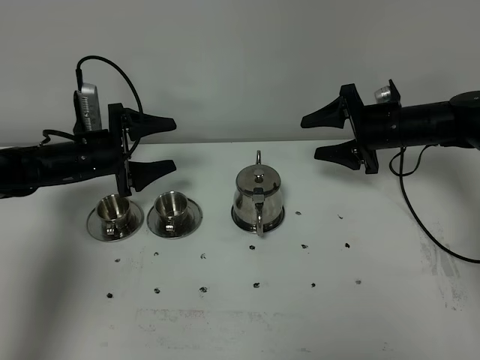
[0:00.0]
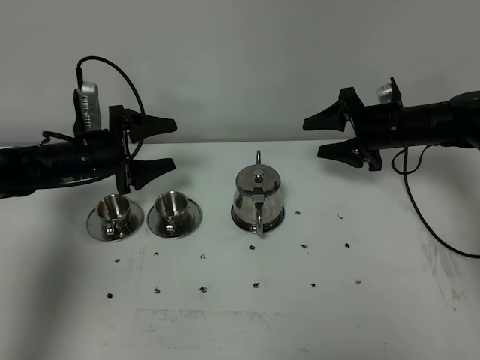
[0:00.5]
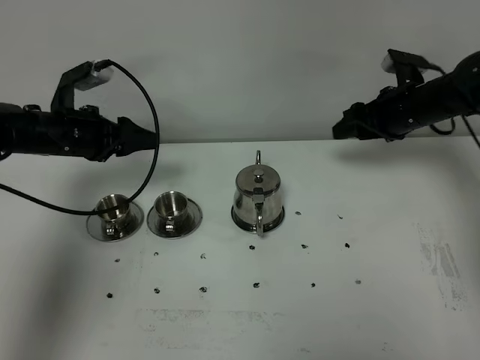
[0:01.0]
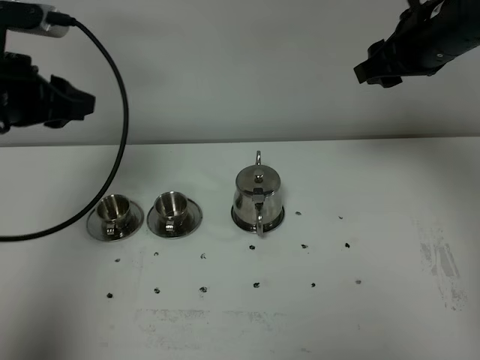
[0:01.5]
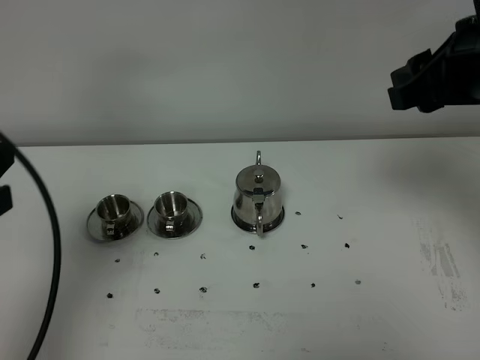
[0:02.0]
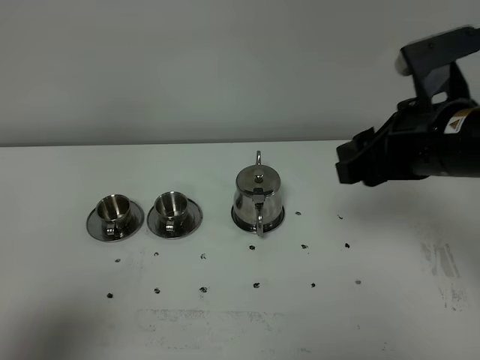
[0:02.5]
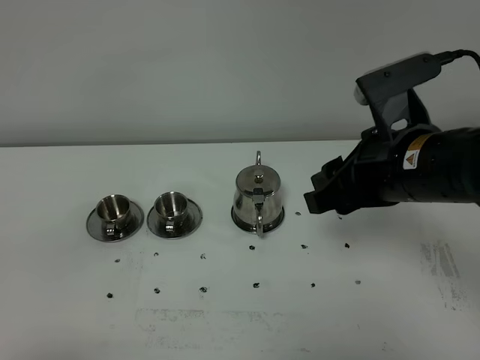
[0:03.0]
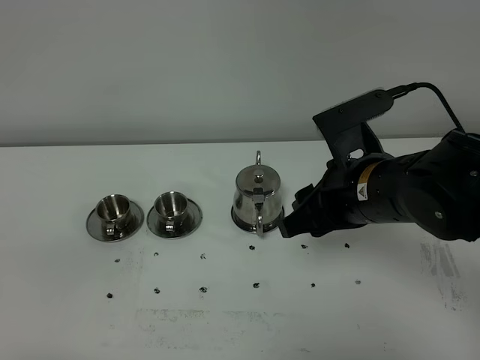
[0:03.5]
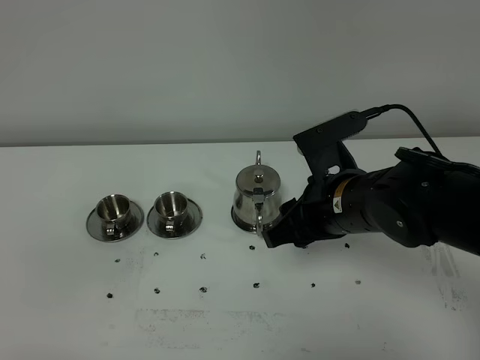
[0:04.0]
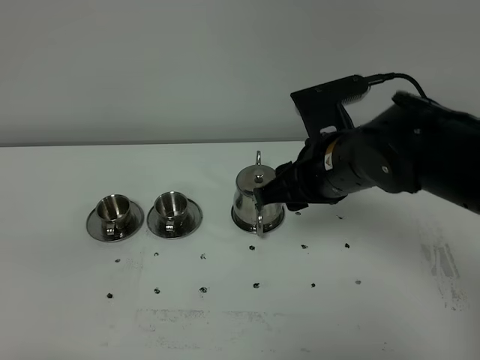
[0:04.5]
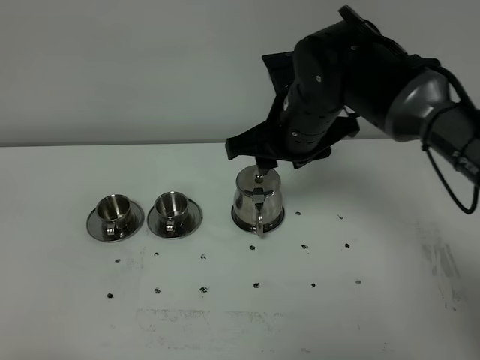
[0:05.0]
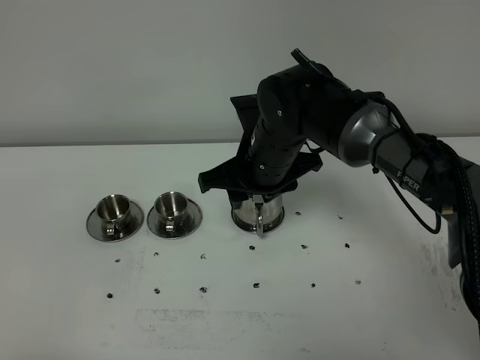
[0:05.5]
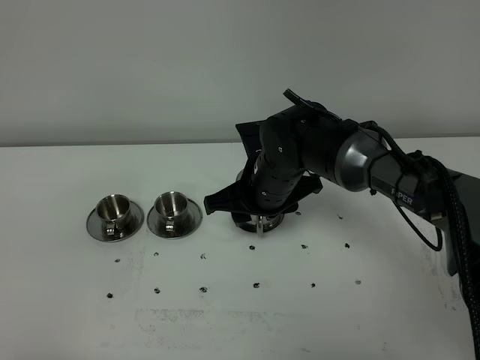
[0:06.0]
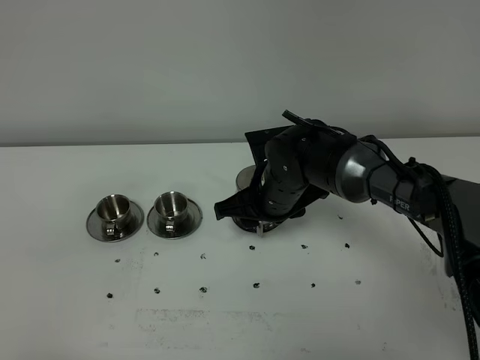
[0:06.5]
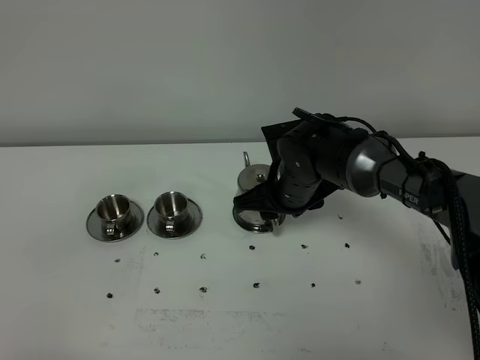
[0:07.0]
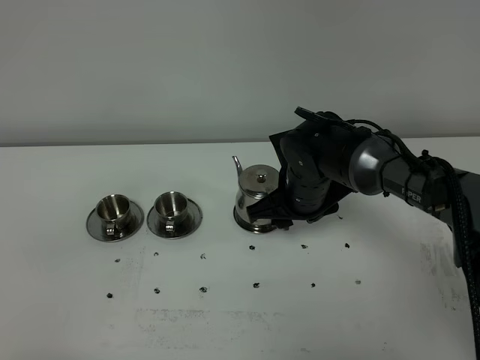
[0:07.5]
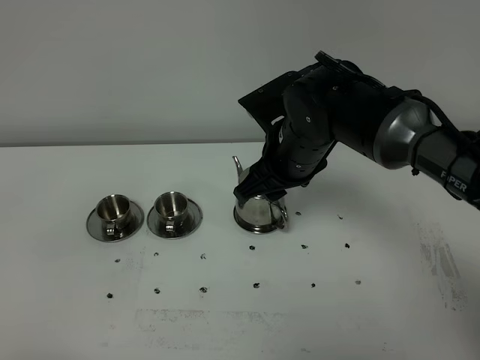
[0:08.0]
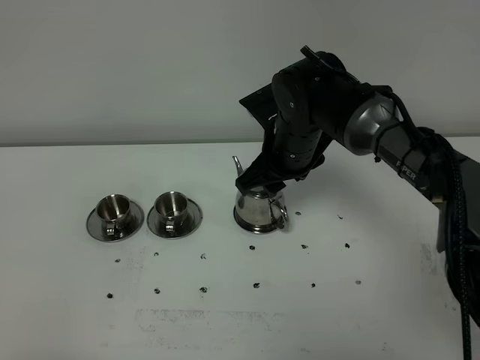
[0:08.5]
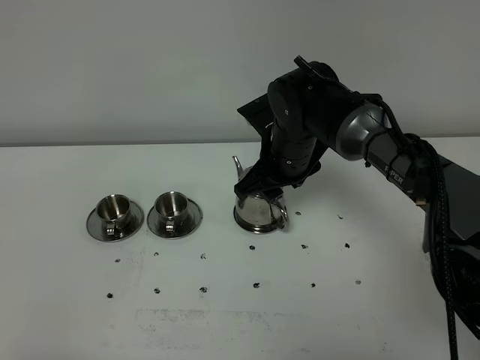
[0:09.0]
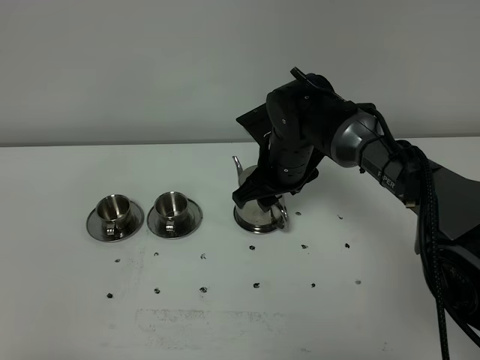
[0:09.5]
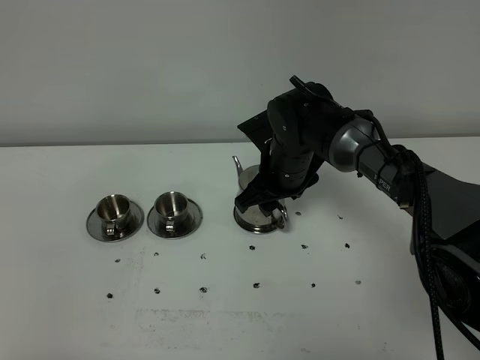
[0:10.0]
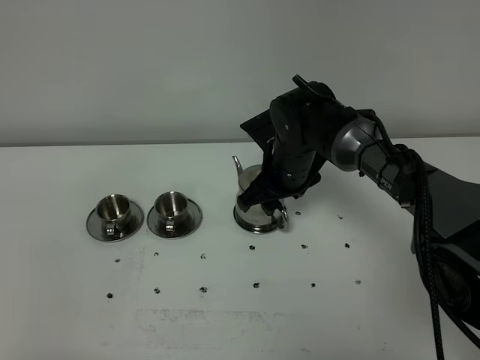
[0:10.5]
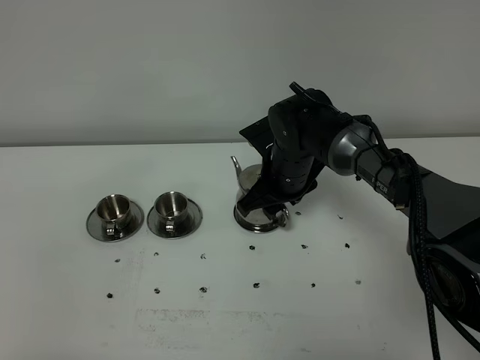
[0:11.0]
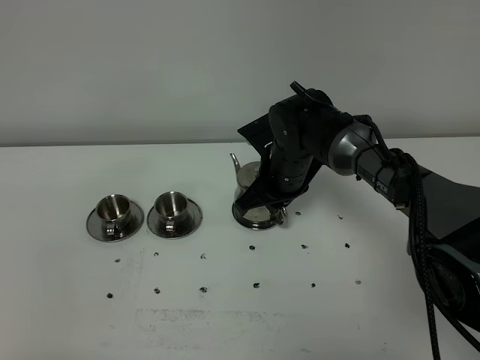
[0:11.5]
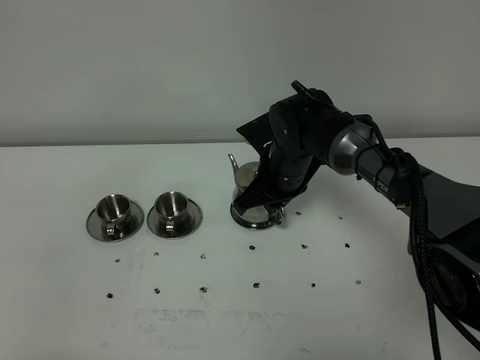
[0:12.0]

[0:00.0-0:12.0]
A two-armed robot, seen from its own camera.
Task of the whole recording: grasp the stainless steel teapot and pour the tea into the two stainless steel teacups one by one, put the stainless steel teapot back in its original place.
0:00.0 to 0:02.0: The left gripper moves backward and upward, about 35 cm, and closes up. Meanwhile the right gripper goes some 30 cm upward and backward.
0:02.0 to 0:04.0: The right gripper heads downward and to the left, covering approximately 20 cm. Meanwhile the left gripper travels backward and downward by some 20 cm, and closes its fingers.
0:04.0 to 0:06.0: The right gripper moves forward and to the left, roughly 10 cm.
0:06.0 to 0:08.0: The right gripper goes approximately 5 cm upward.
0:08.0 to 0:10.0: The right gripper goes some 10 cm downward and forward.
0:10.0 to 0:12.0: The right gripper closes.

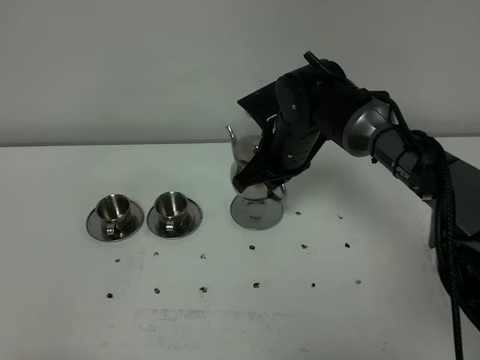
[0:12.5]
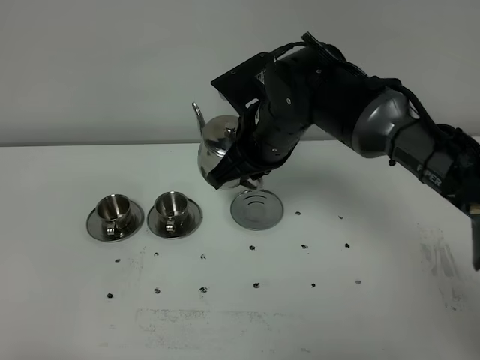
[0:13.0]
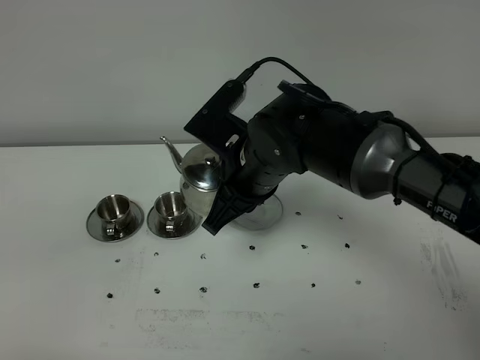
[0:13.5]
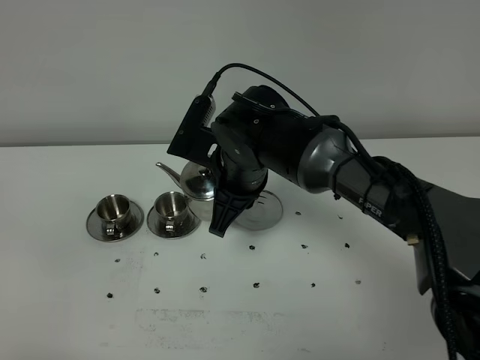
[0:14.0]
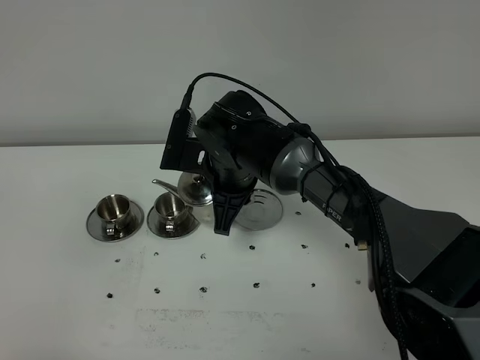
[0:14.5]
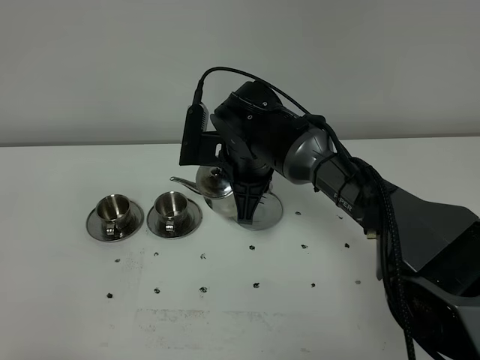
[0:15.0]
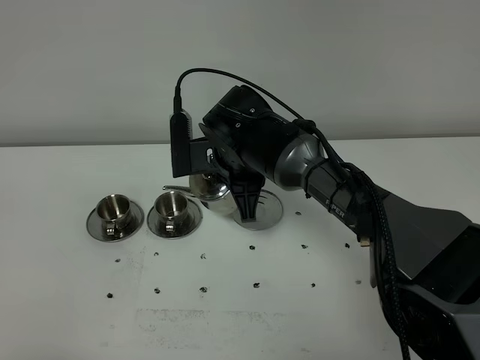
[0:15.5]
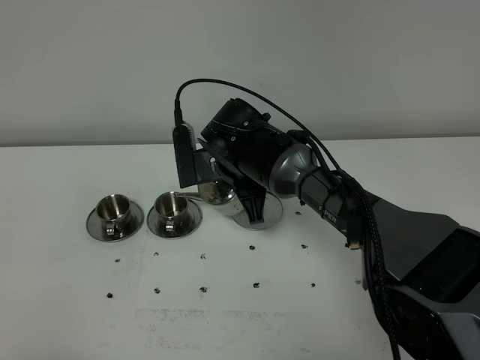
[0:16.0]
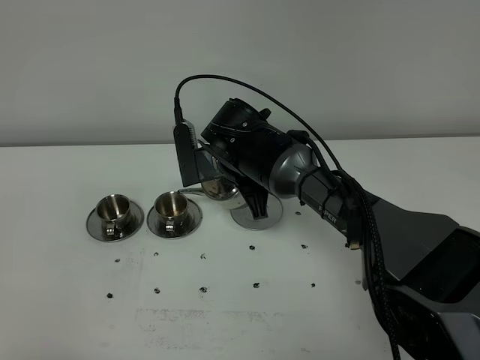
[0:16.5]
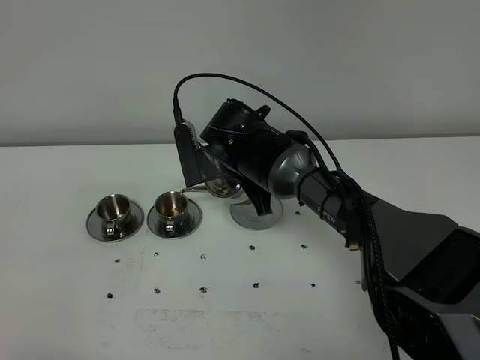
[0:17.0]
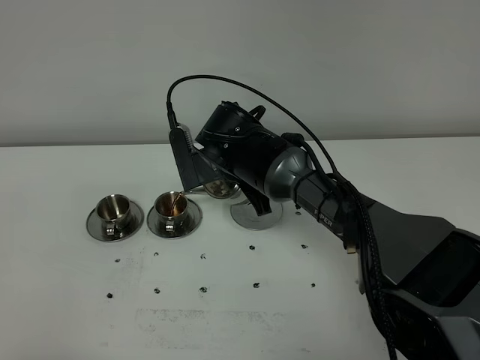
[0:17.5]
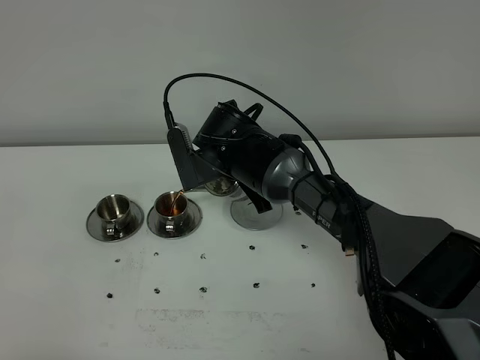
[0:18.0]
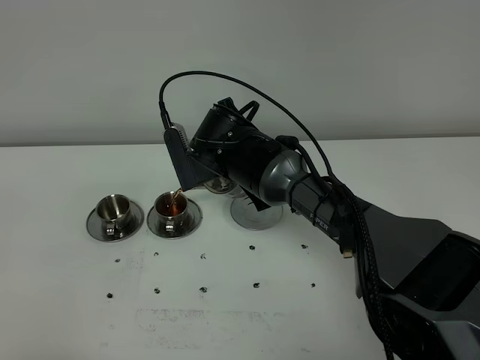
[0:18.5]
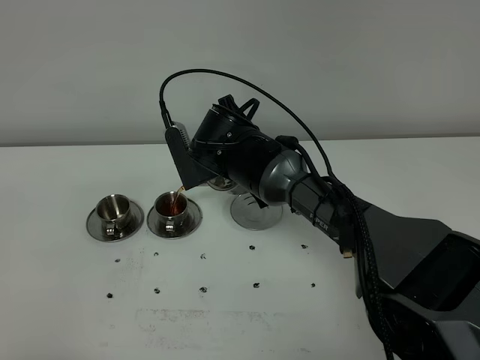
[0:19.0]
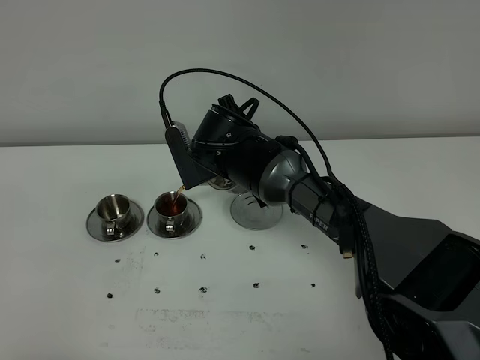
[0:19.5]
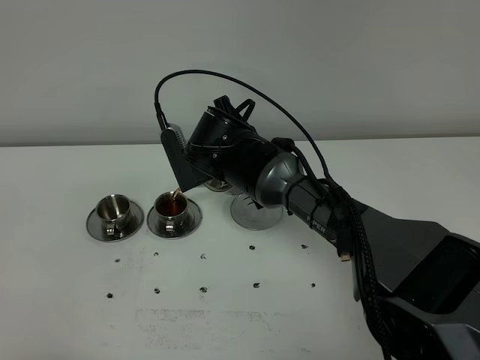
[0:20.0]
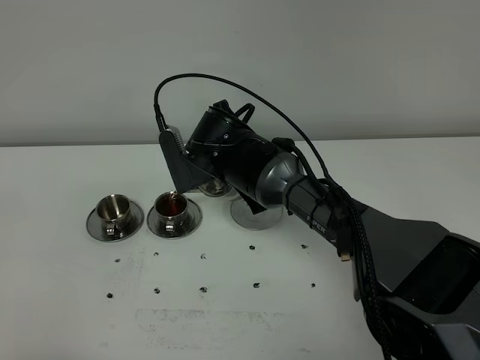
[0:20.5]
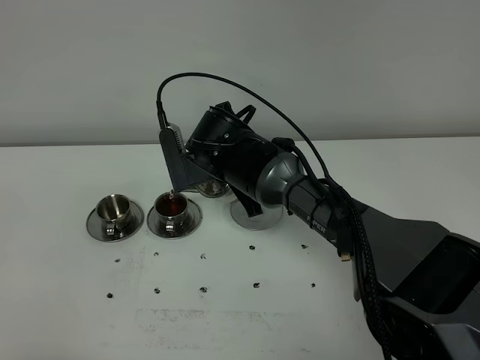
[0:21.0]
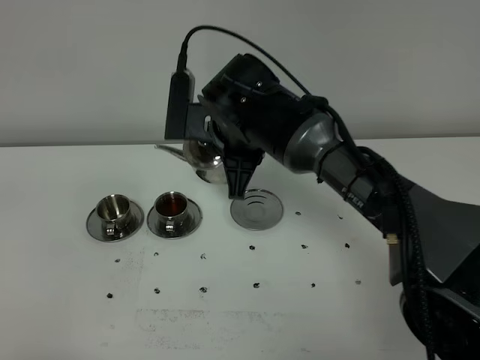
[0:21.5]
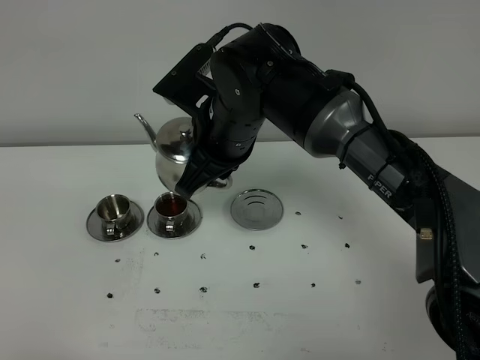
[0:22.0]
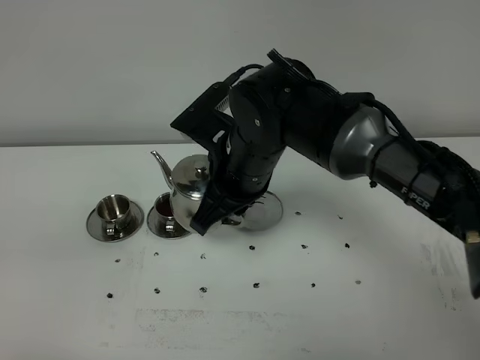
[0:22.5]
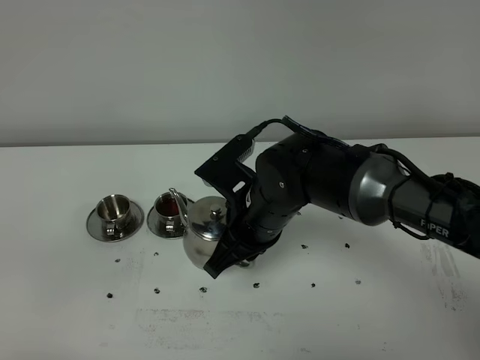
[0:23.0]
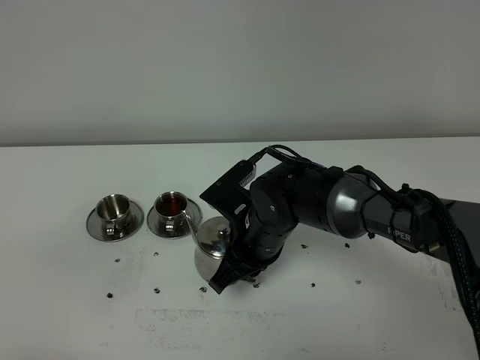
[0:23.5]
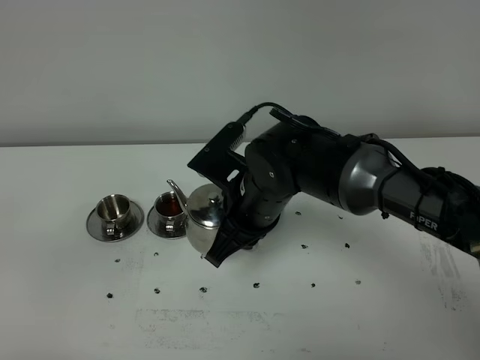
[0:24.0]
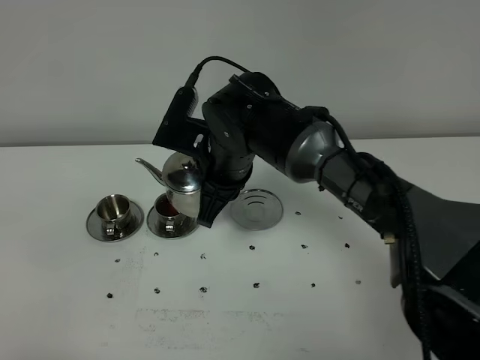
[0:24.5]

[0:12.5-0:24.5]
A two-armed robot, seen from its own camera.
Task of the whole recording: grasp the stainless steel teapot and pour the tea into the two stainless steel teacups one by one, put the stainless steel teapot back in its original place.
Step, 0:12.5 to 0:21.0: Pour tea into the teacup with the right gripper.
0:12.5 to 0:14.5: The right gripper is displaced to the left by roughly 5 cm.
0:16.5 to 0:18.5: The grippers stay close to where they were, moving slightly.
0:18.5 to 0:20.5: The two grippers keep their place.
0:20.5 to 0:22.5: The right gripper moves backward and upward, approximately 10 cm.
0:22.5 to 0:24.5: The right gripper moves approximately 10 cm downward and comes back.

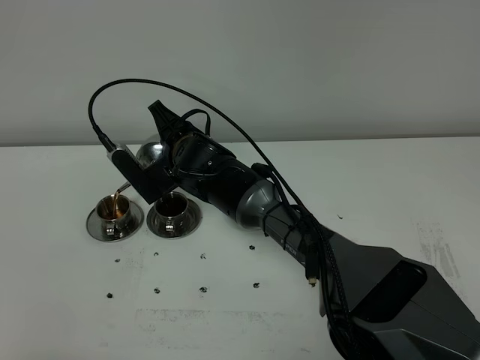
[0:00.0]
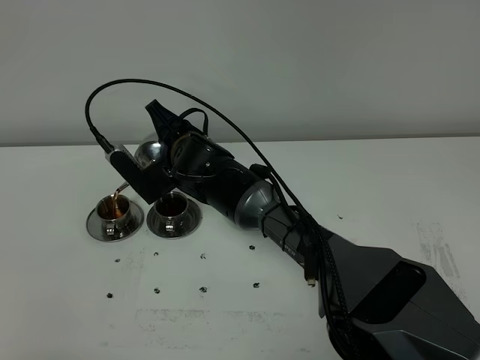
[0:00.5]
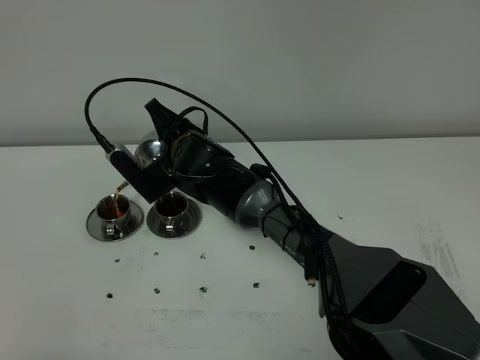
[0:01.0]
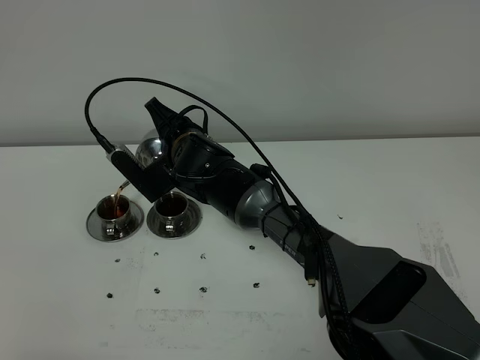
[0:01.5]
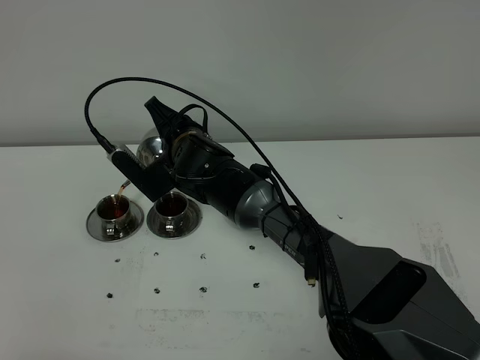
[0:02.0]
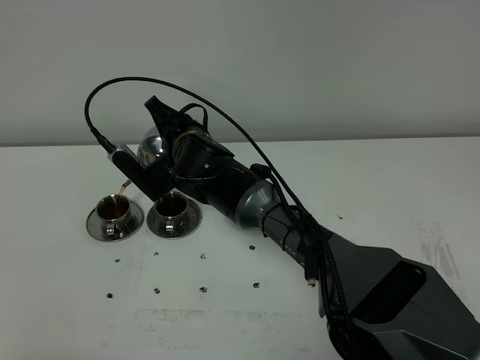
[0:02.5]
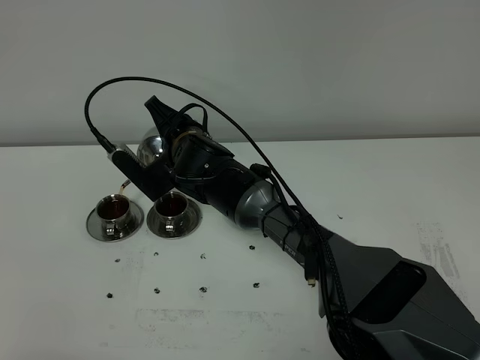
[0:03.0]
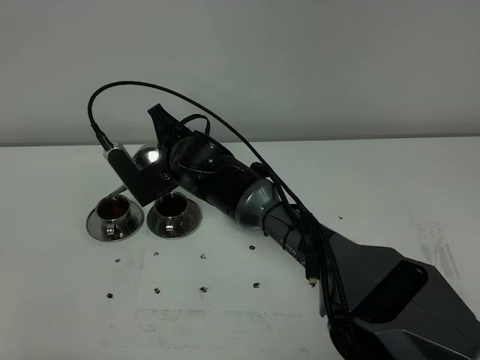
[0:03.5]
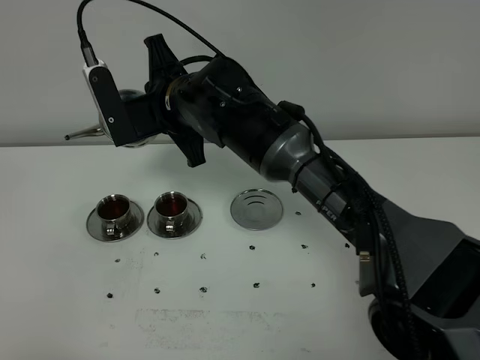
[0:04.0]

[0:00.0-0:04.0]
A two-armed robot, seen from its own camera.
Task of the whole recording: grasp the stainless steel teapot and pour the tea into the two stainless steel teacups one by one, put the stainless steel teapot back in its original place.
0:00.0 to 0:02.0: The grippers move only a little.
0:02.0 to 0:04.0: The right gripper shifts about 10 cm upward.
